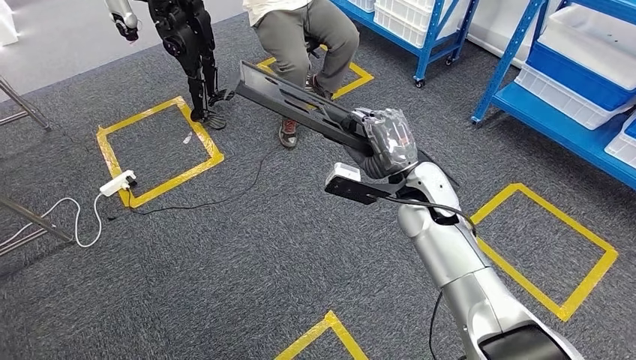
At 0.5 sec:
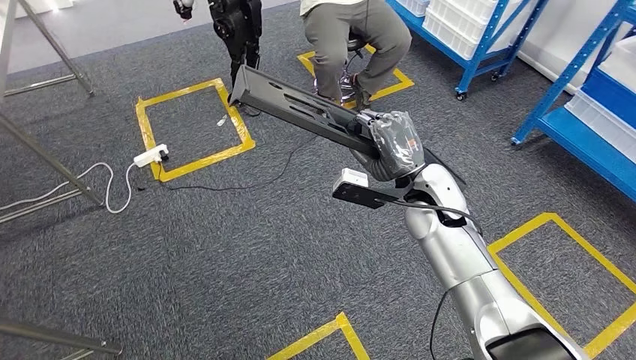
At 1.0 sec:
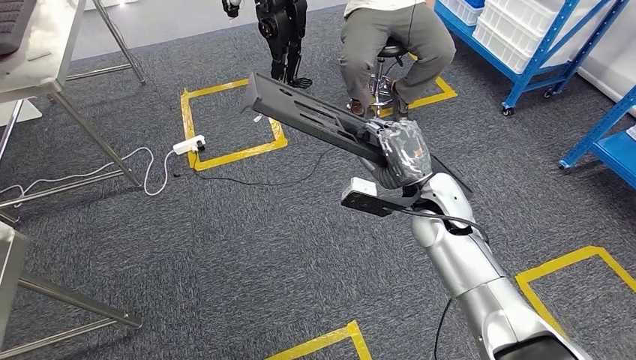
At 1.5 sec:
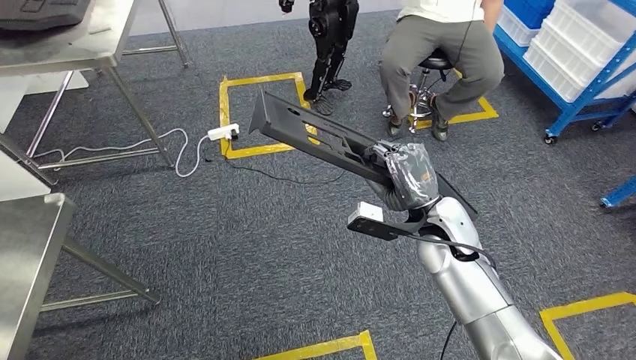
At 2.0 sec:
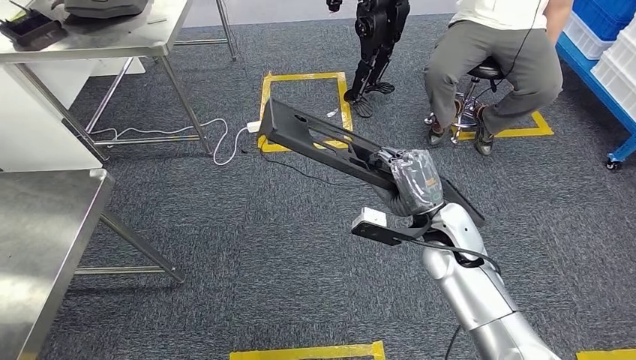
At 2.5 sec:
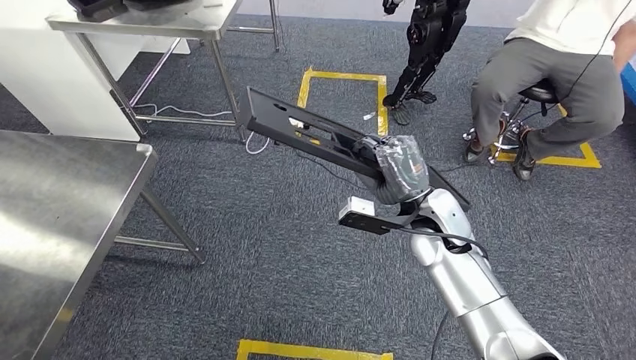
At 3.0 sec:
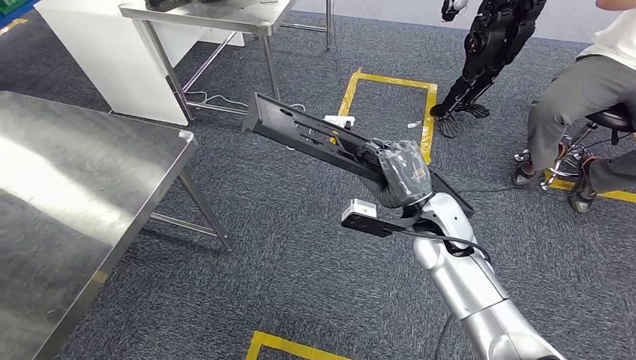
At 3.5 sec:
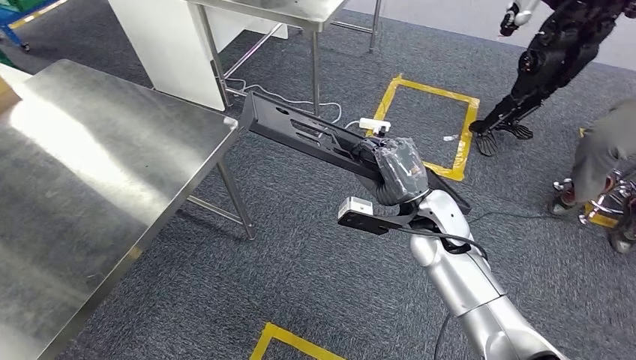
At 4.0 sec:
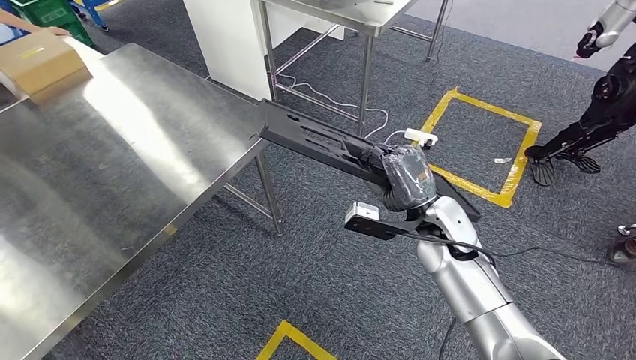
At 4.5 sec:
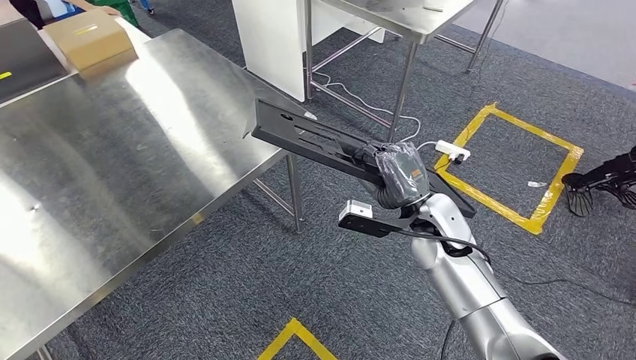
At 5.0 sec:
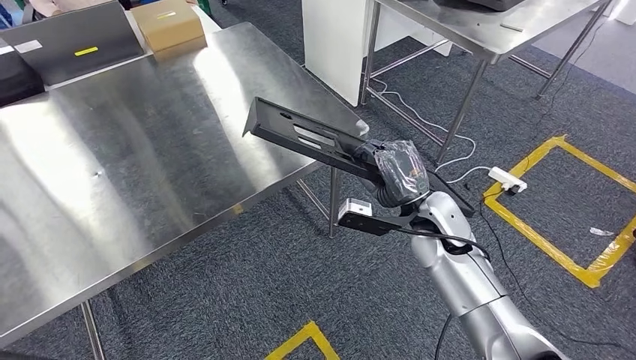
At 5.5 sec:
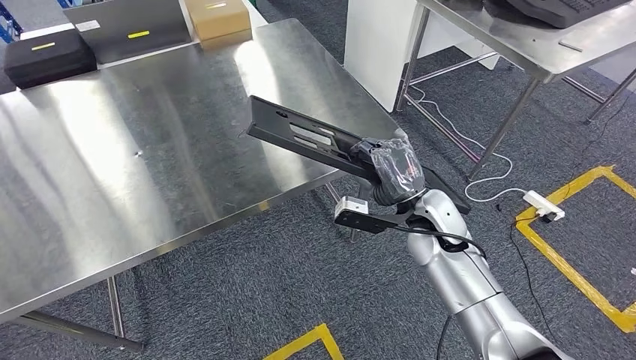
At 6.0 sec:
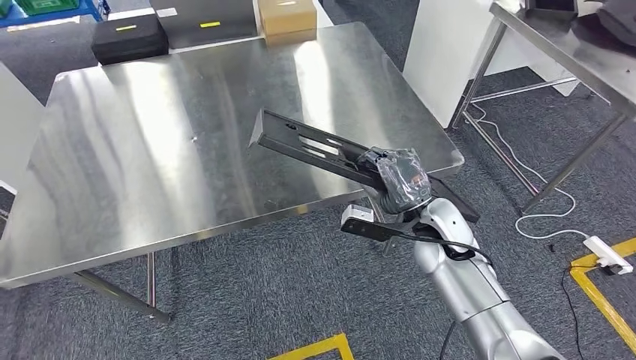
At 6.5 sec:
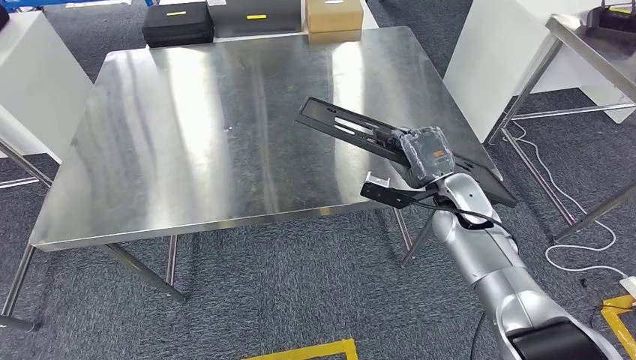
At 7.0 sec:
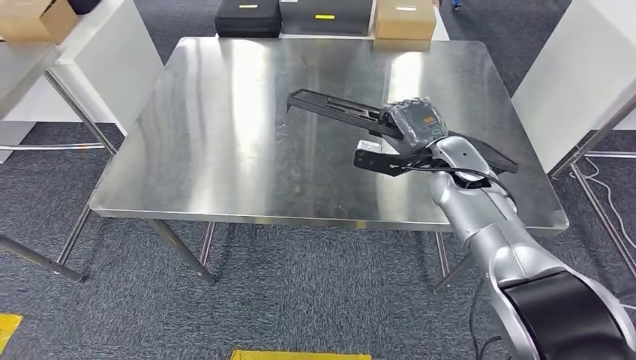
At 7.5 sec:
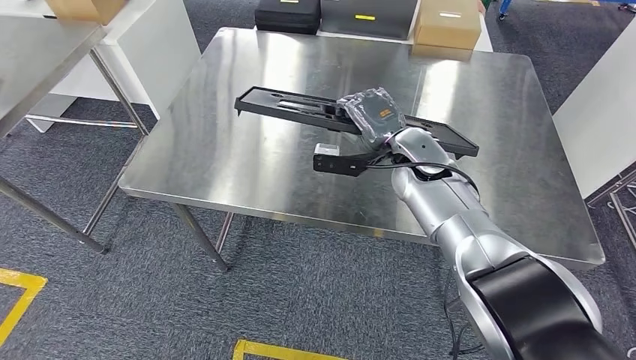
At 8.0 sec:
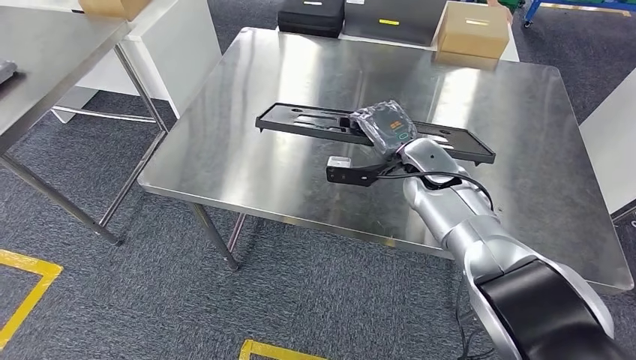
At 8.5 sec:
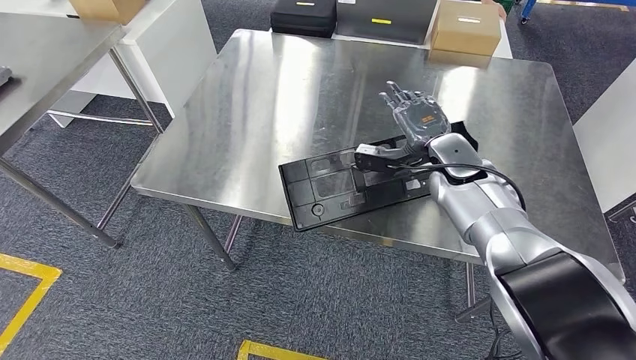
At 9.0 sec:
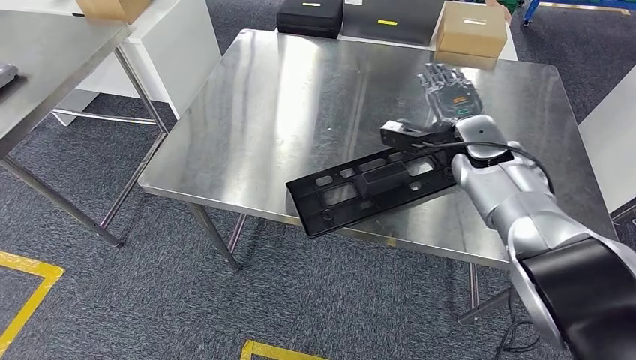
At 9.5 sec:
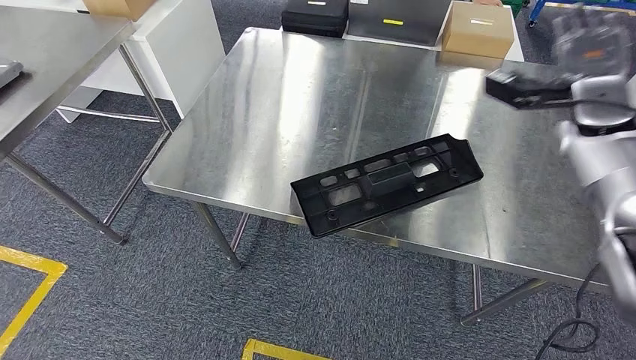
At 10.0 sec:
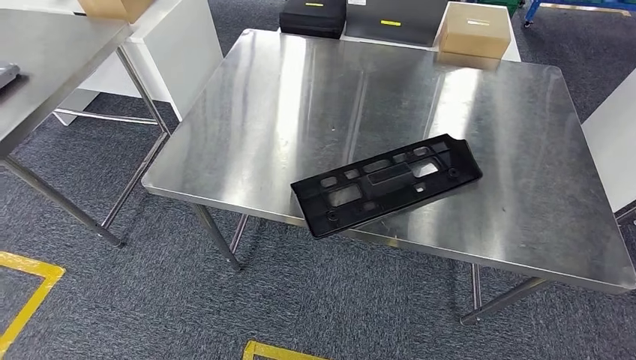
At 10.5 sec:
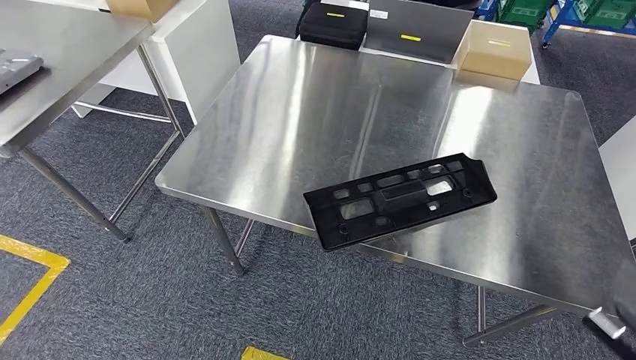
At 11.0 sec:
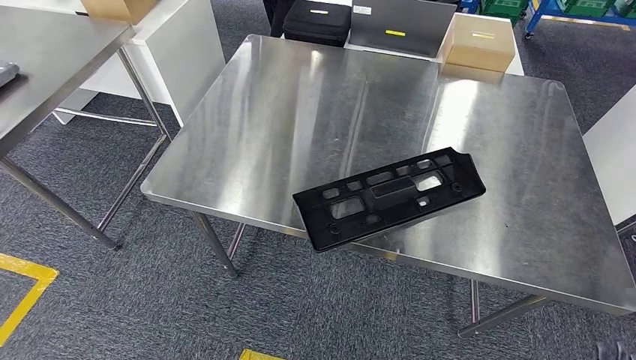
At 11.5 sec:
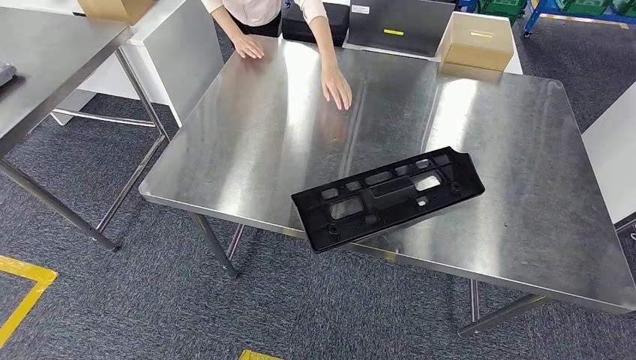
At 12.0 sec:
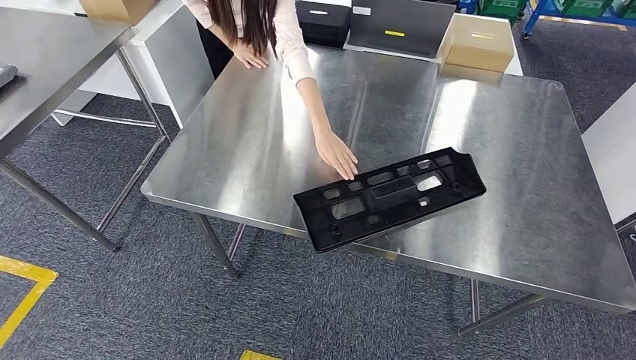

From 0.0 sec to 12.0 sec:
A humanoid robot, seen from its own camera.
Step, from 0.0 sec to 5.0 sec: Move the large material to the workbench.
Step, from 7.0 sec to 12.0 sec: Insert the large material into the corresponding slot on the workbench.
From 8.0 sec to 10.0 sec: The right hand goes approximately 40 cm to the right and upward. The left hand moves to the right, roughly 5 cm.

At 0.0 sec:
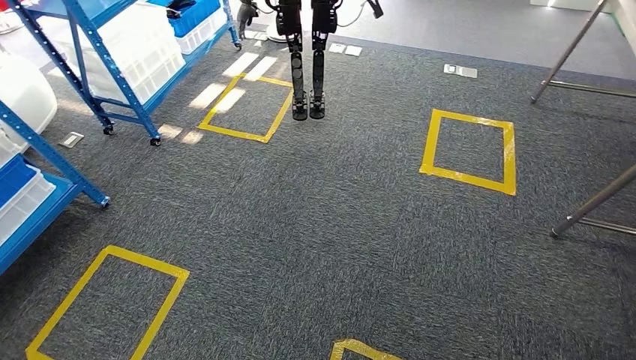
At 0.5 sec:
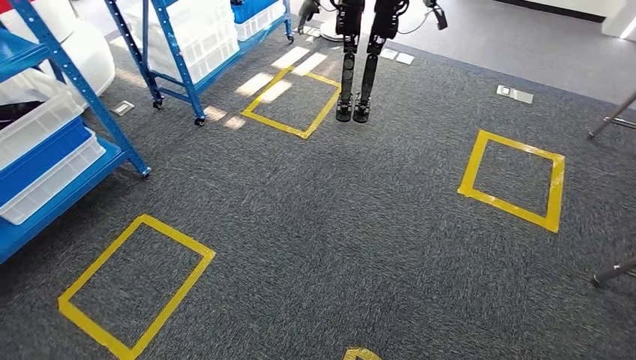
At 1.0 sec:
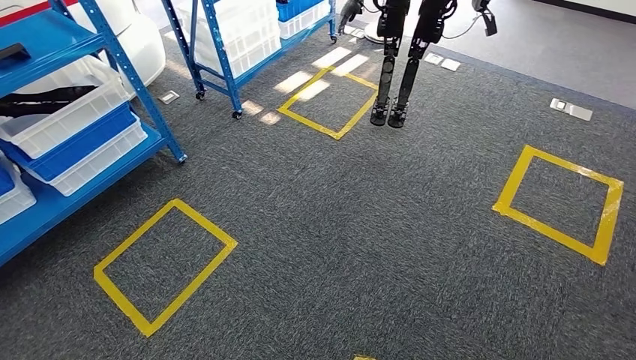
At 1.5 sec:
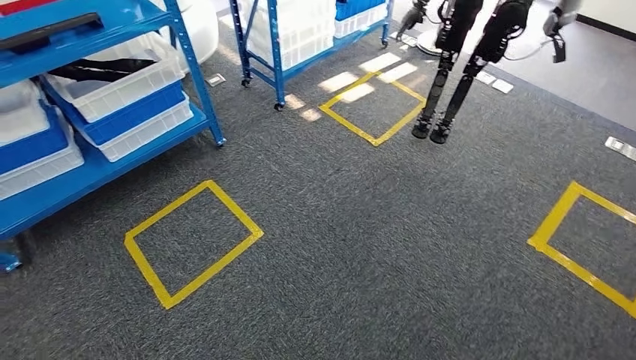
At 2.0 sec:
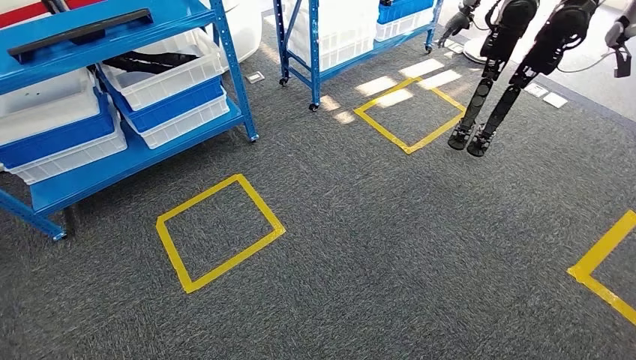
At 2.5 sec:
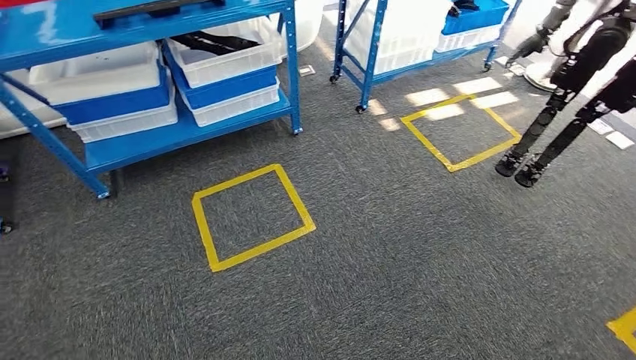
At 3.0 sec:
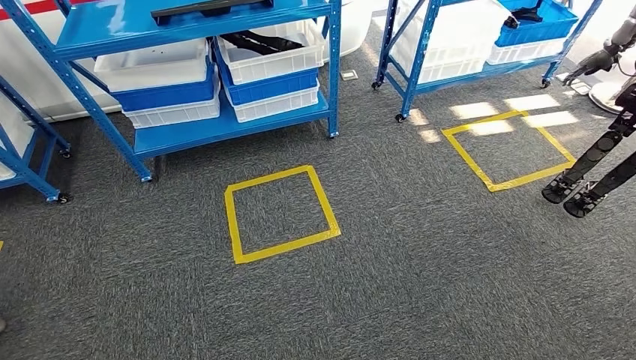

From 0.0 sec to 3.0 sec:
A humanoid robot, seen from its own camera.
Step, from 0.0 sec to 3.0 sec: Move to the initial position of the shelf.

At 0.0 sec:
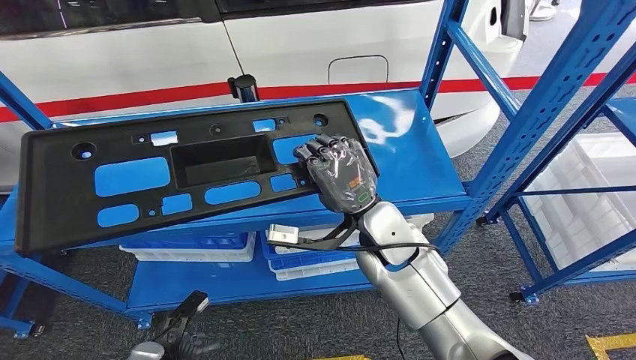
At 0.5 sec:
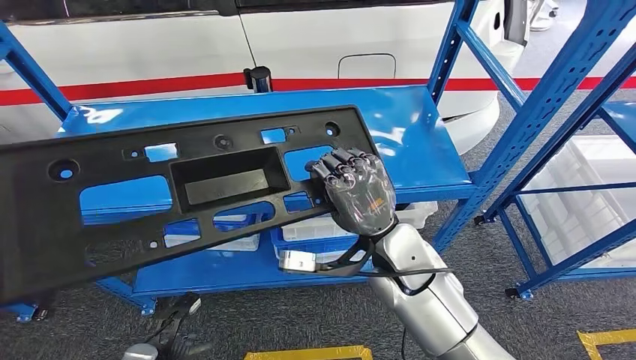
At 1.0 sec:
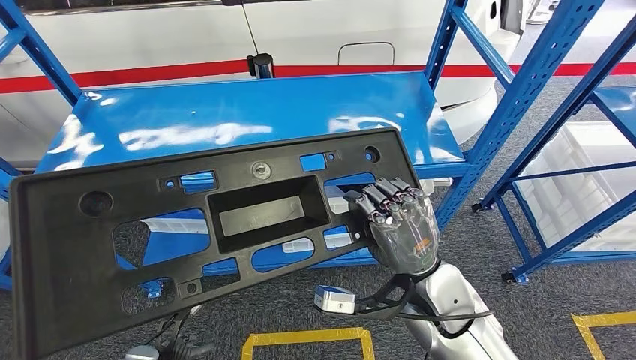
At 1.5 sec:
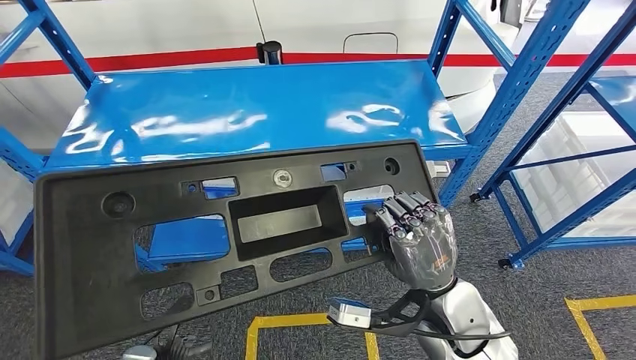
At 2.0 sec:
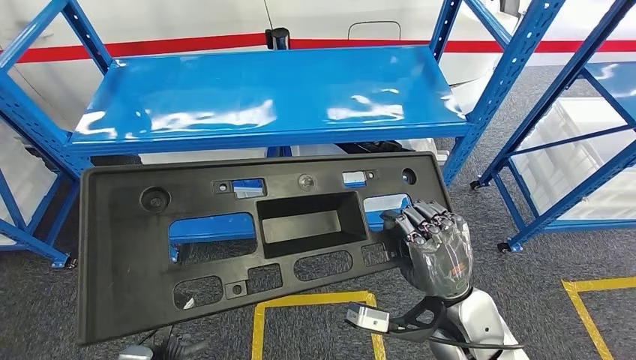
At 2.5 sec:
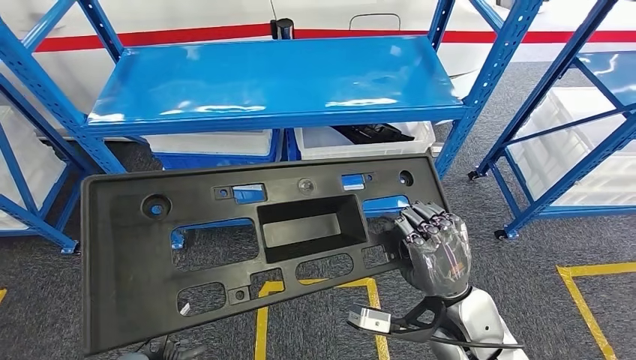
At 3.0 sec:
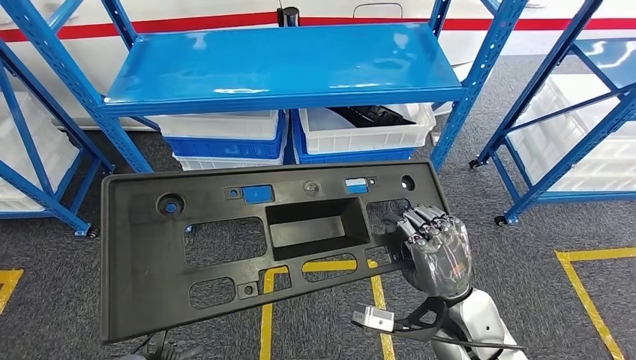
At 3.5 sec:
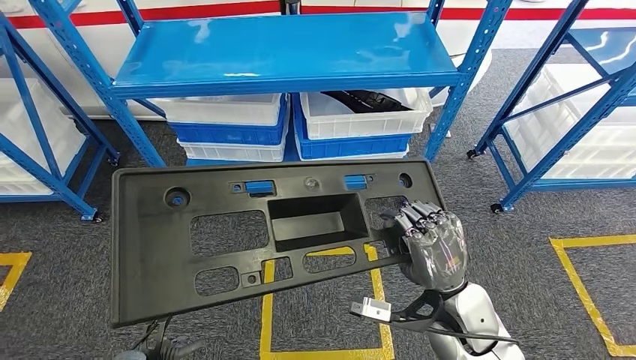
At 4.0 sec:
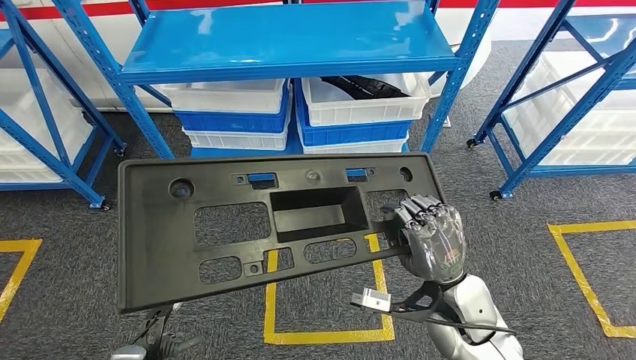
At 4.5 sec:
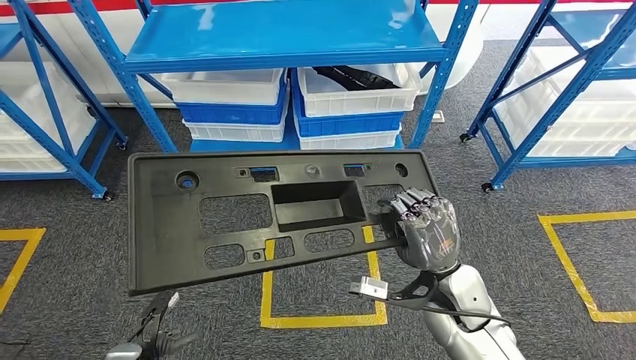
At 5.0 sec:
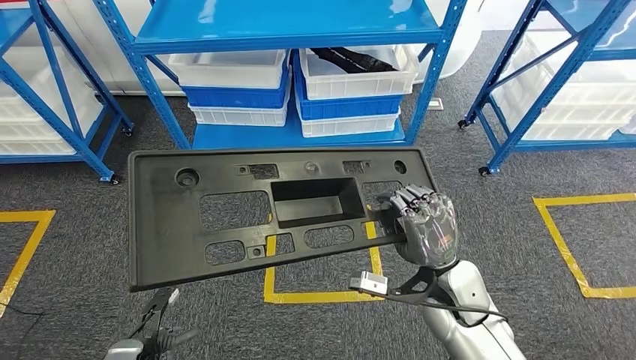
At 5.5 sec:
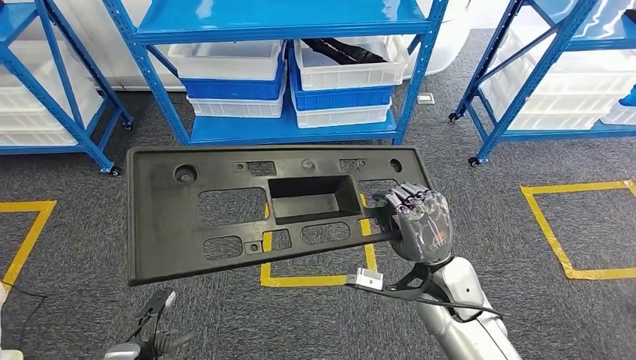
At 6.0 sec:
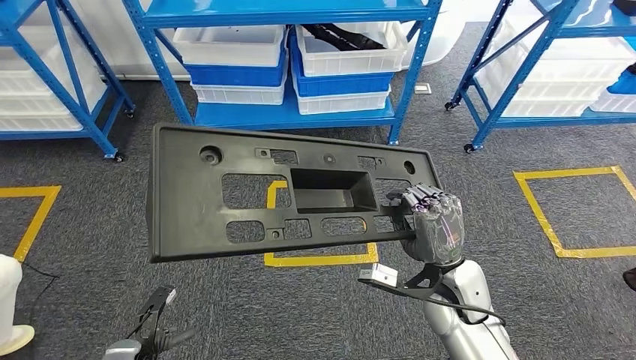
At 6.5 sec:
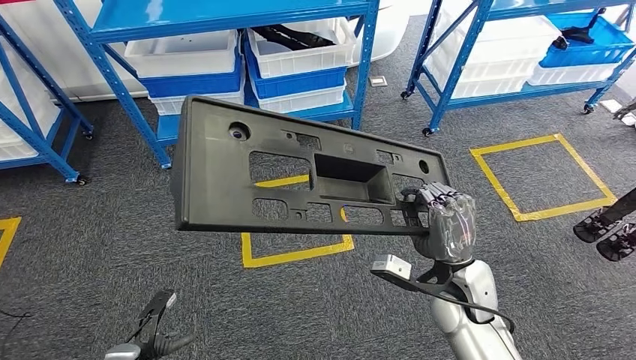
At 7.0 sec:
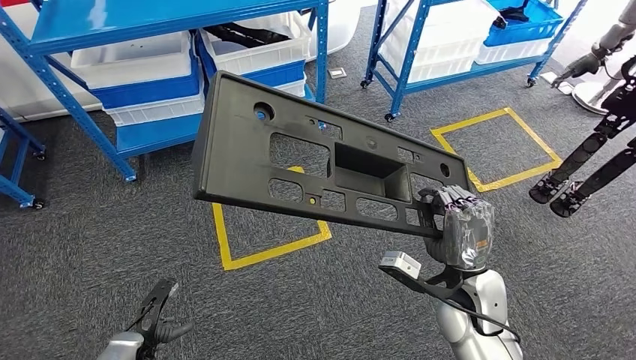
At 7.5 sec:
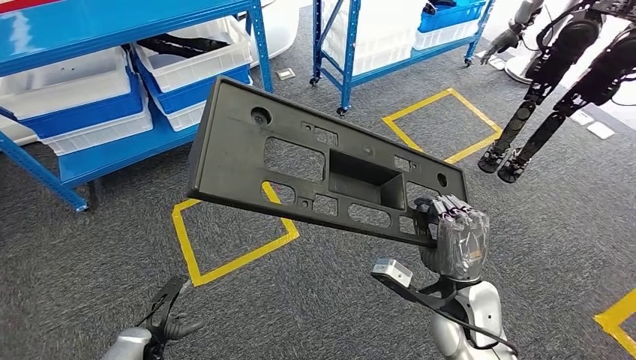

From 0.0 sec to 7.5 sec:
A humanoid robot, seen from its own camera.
Step, from 0.0 sec to 2.0 sec: Pick up the large material from the shelf.
